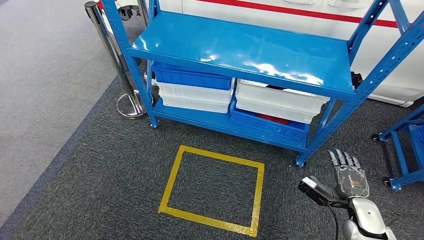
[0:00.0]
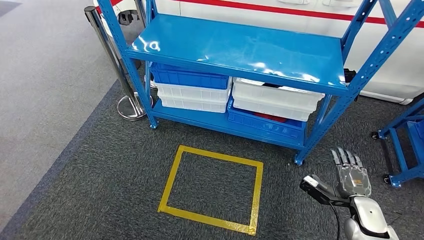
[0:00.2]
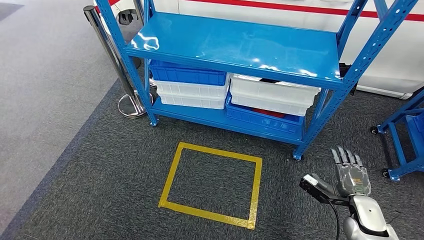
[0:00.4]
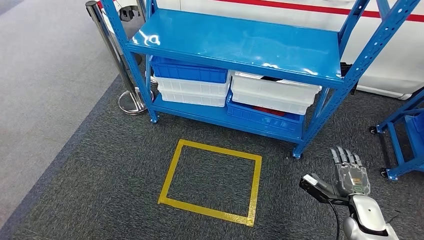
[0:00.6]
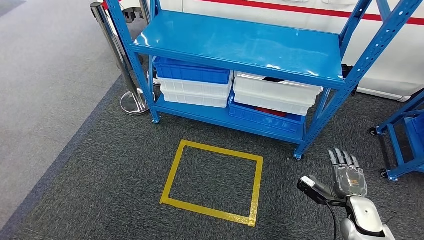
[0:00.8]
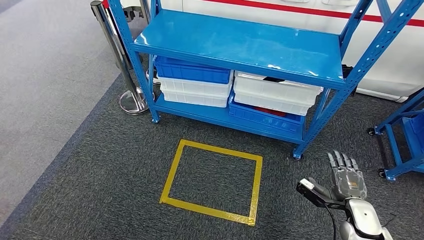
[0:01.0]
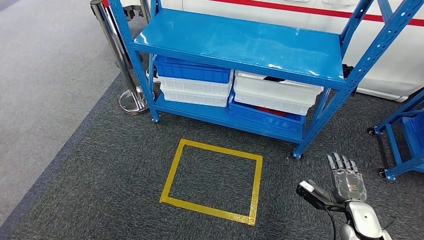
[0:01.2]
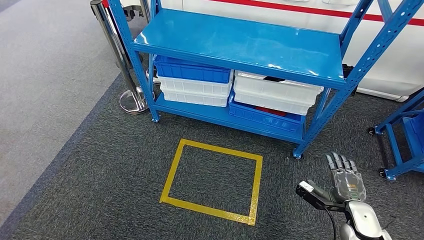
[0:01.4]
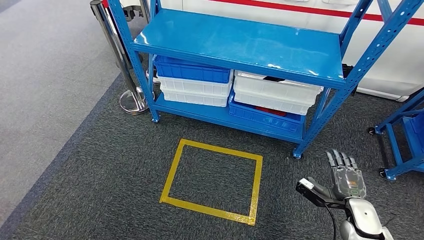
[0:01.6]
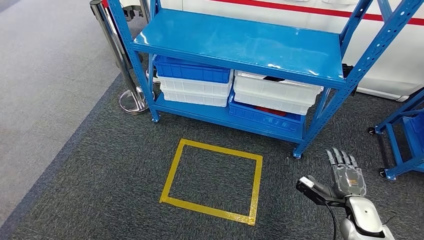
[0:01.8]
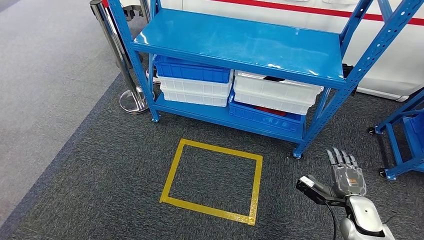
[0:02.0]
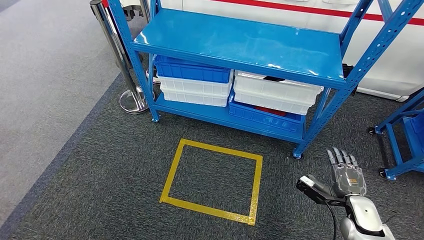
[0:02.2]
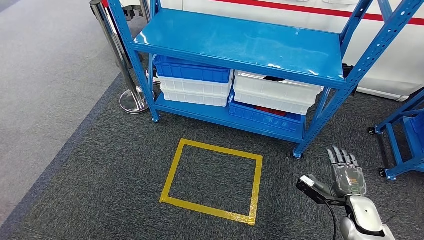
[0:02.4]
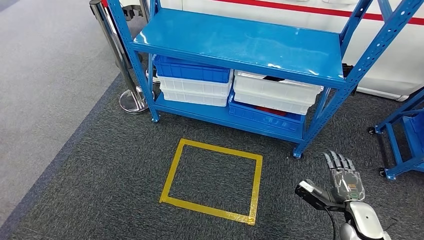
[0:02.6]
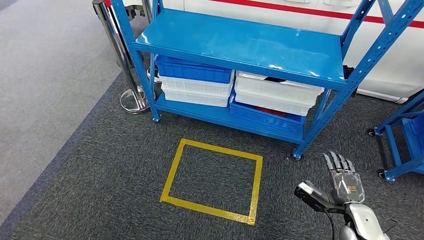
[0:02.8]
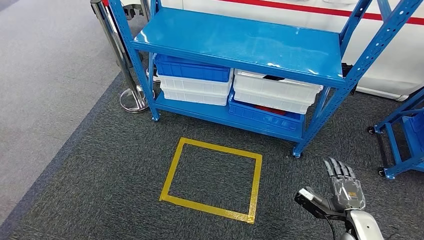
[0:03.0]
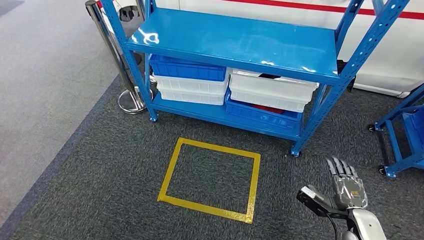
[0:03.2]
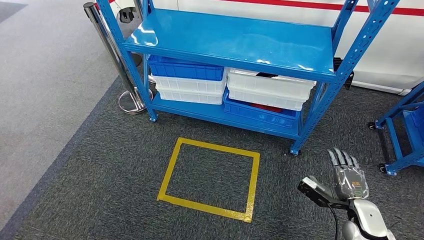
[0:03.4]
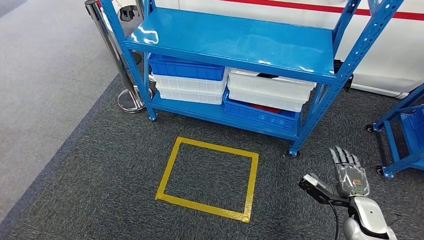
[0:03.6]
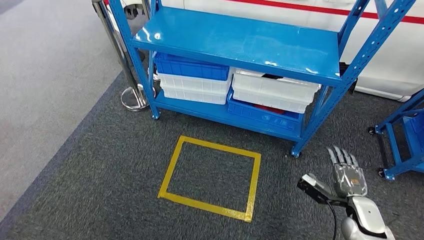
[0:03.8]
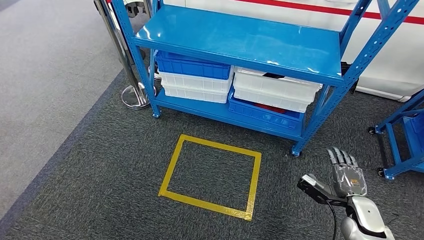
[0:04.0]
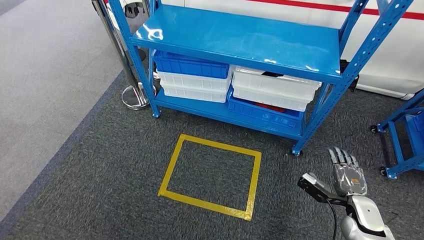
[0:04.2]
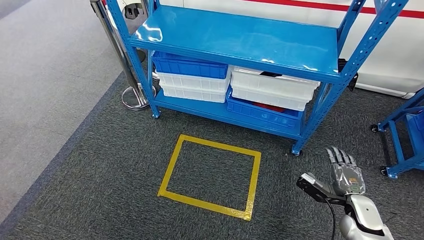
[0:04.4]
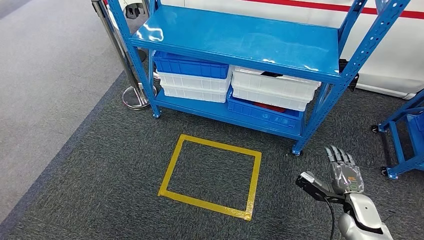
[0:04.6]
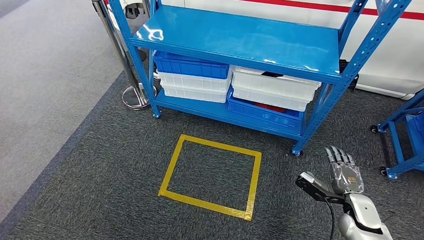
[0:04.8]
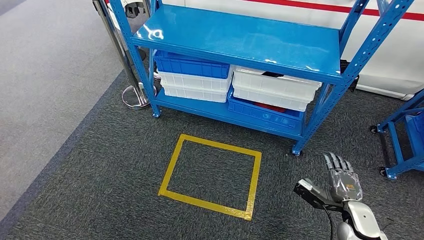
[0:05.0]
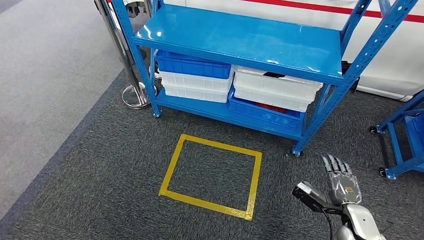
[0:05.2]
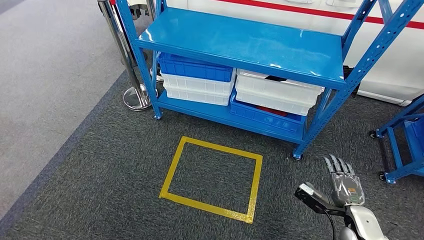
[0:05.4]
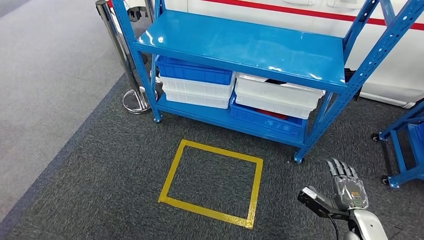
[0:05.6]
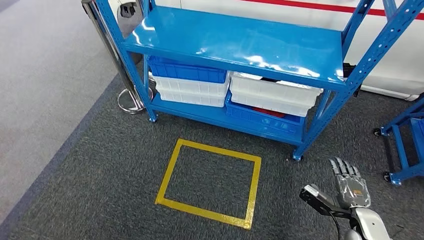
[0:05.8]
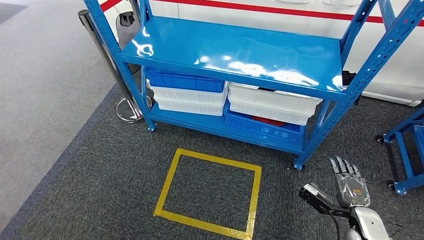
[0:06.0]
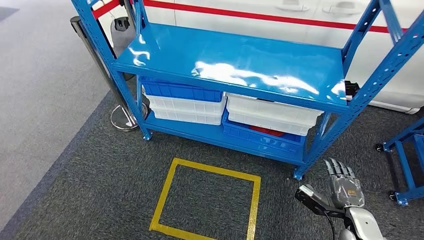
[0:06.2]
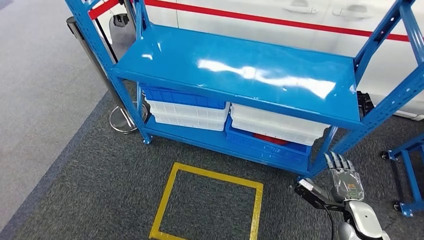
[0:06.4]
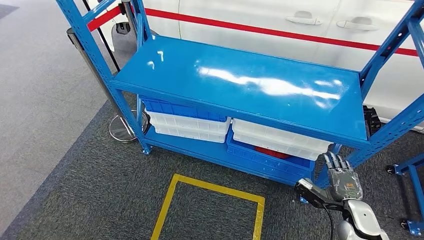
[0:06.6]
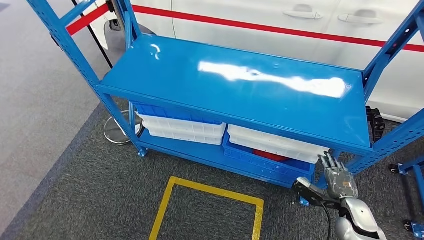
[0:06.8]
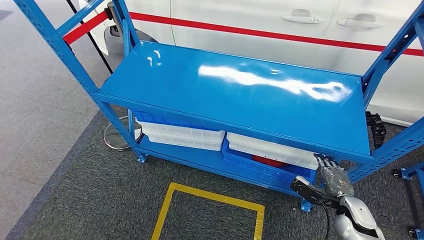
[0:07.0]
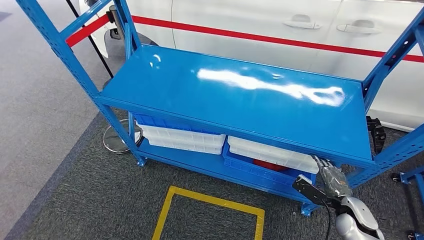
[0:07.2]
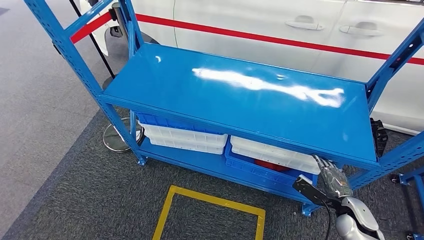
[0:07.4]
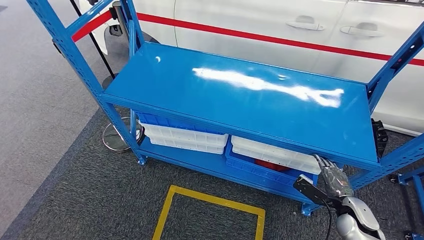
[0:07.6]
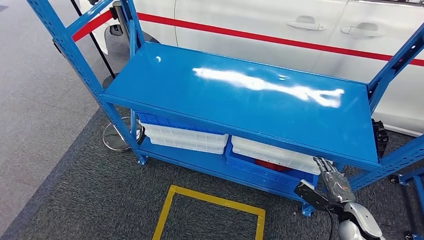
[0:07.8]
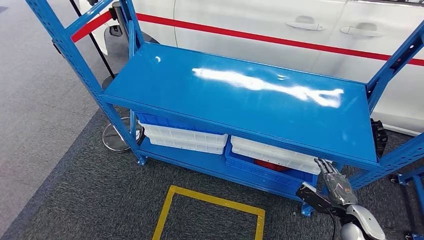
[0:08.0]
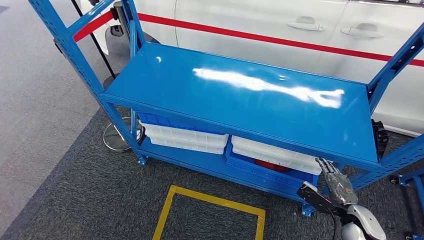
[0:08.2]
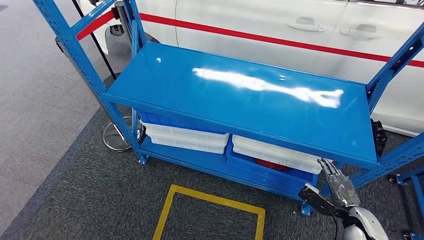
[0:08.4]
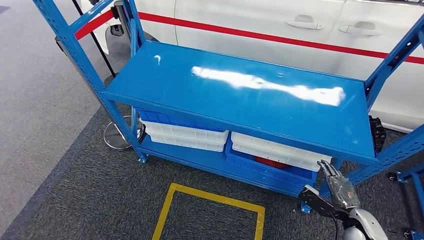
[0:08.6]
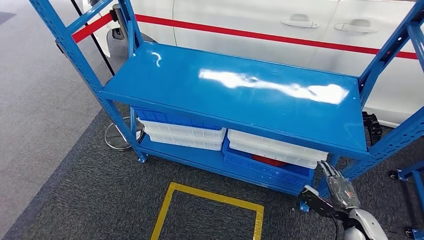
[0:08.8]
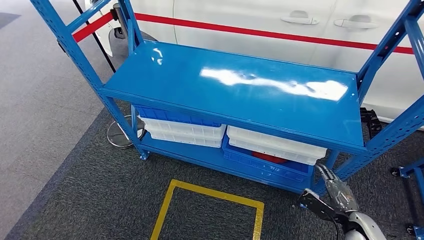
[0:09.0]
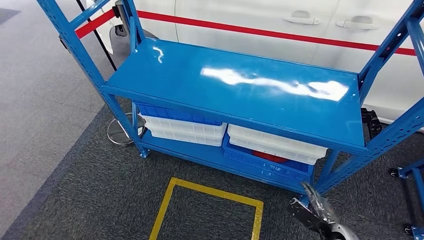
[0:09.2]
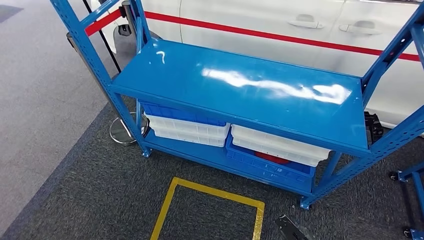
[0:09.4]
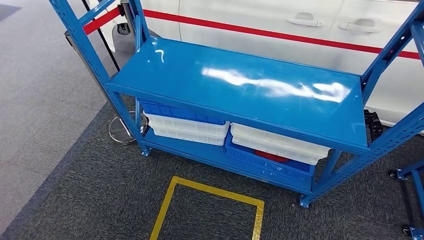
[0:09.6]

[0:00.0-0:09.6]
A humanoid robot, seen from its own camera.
0:01.6 to 0:04.8: There are only small adjustments of the hands.
